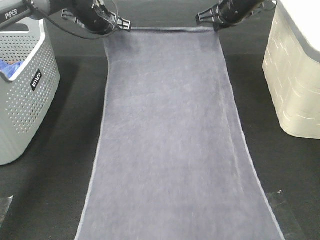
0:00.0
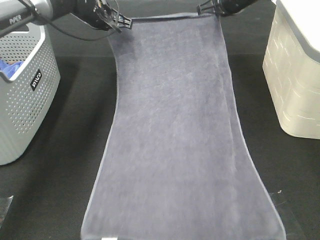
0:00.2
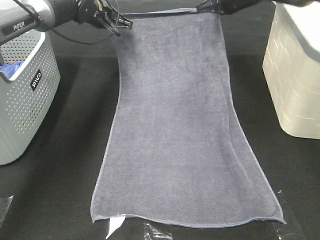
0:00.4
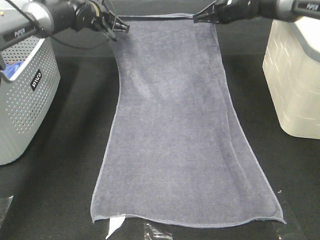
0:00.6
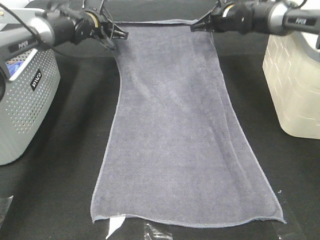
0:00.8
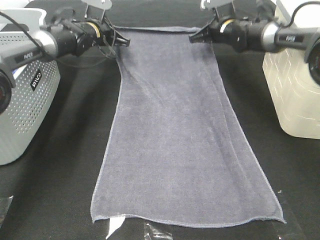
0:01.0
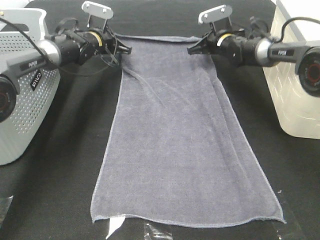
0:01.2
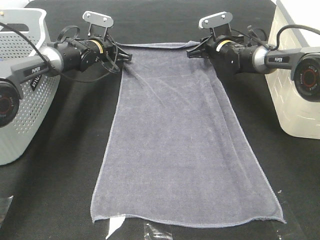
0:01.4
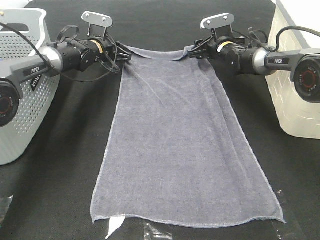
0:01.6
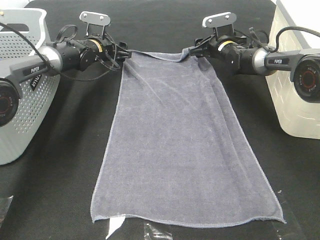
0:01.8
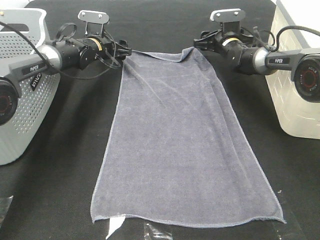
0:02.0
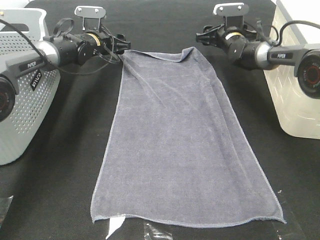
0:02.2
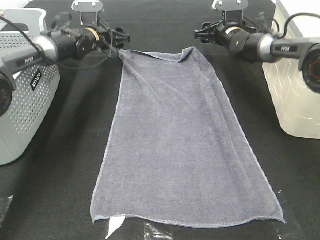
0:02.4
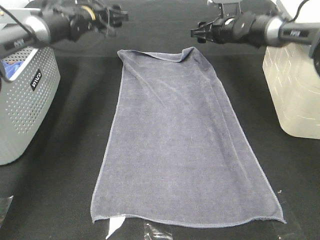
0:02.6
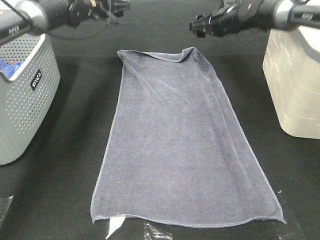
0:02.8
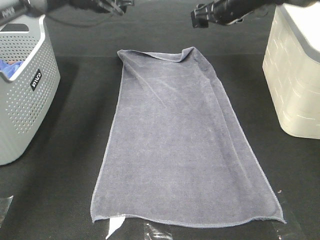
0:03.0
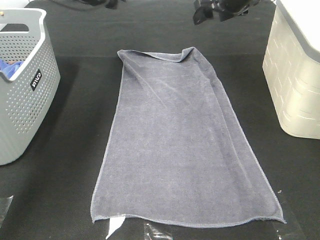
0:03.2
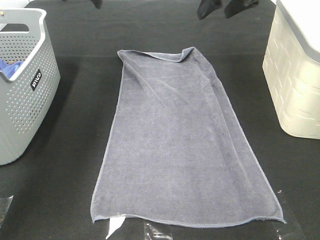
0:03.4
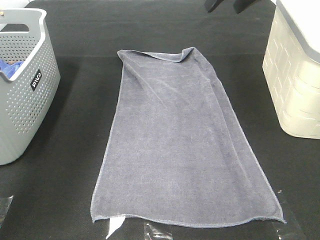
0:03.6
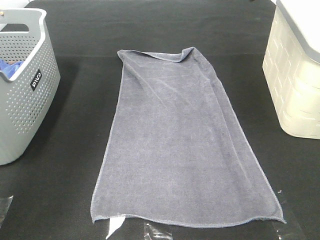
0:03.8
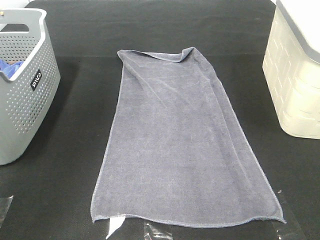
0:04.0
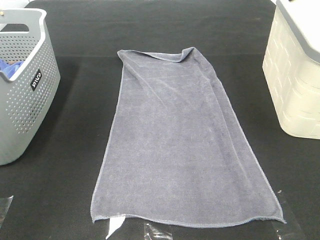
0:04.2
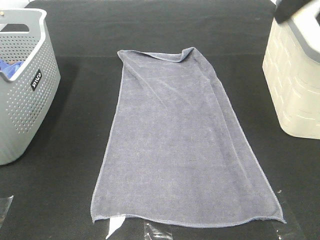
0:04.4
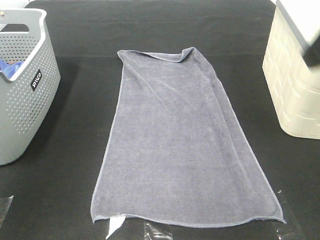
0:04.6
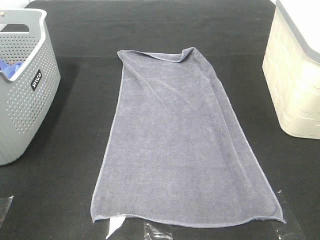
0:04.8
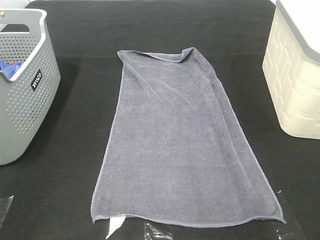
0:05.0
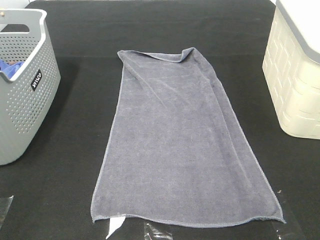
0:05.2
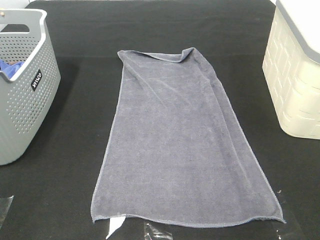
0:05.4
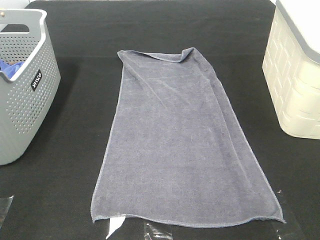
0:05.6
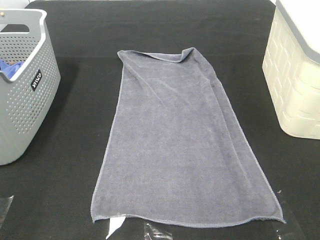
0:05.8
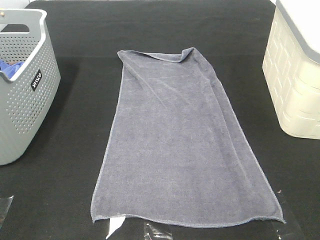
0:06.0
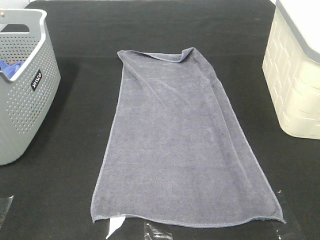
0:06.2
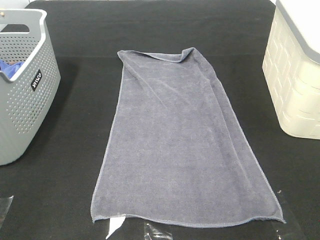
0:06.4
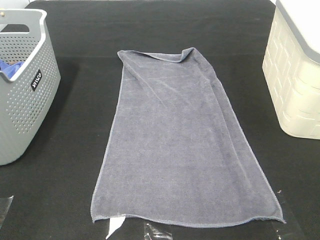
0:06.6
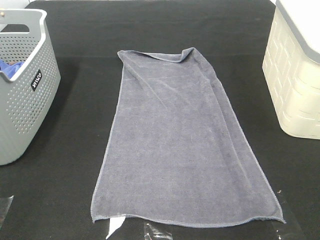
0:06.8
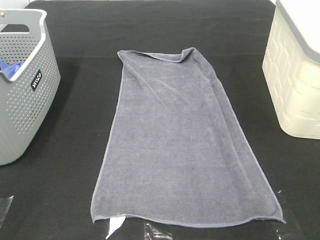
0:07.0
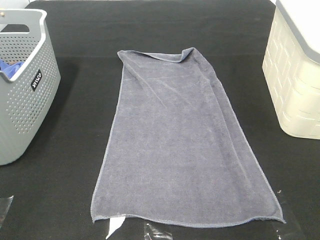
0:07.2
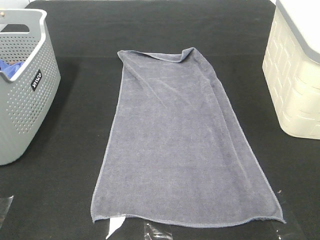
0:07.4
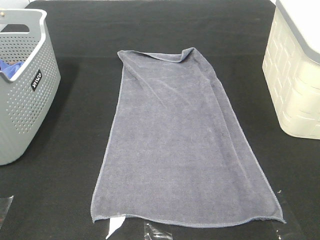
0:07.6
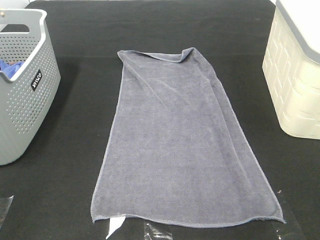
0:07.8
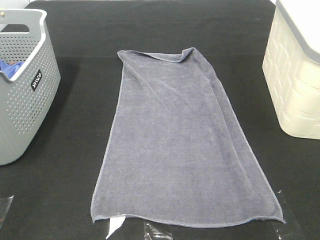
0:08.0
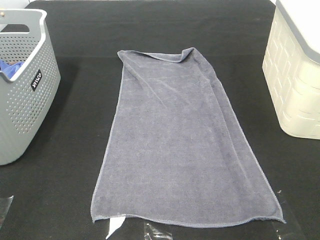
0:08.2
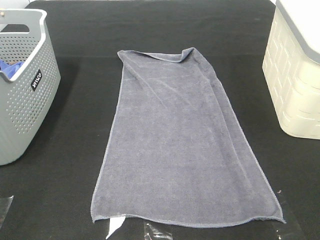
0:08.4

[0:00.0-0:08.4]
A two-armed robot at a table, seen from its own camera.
Task of the whole recording: Remove the towel and place it.
0:00.0 to 0:01.4: Both grippers travel together downward, some 15 cm. The right gripper opens up.
0:01.4 to 0:02.8: The two grippers go roughly 10 cm upward. The right gripper opens its fingers; the left gripper opens.
0:02.8 to 0:04.2: Both grippers move backward and upward, about 35 cm.
0:04.2 to 0:05.6: The right gripper goes approximately 30 cm backward; the left gripper is displaced backward and downward by about 35 cm.
0:07.0 to 0:08.4: Neither gripper changes place.

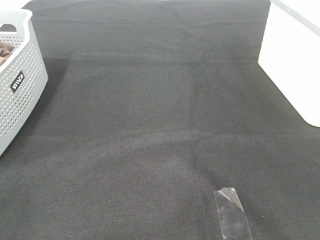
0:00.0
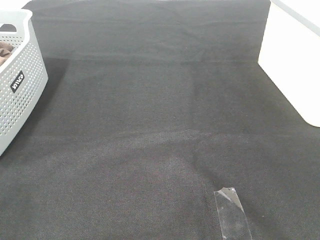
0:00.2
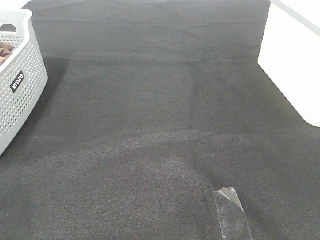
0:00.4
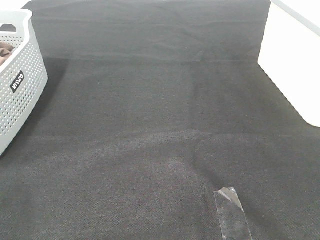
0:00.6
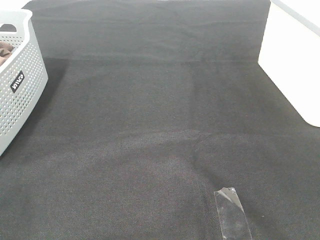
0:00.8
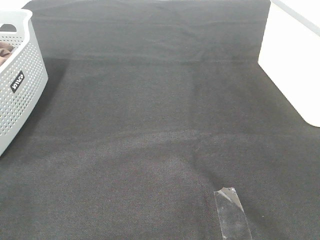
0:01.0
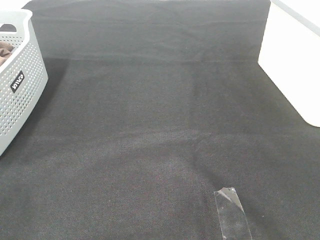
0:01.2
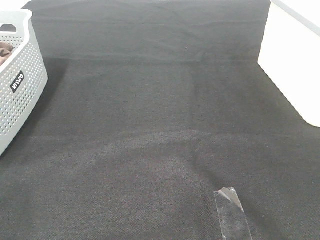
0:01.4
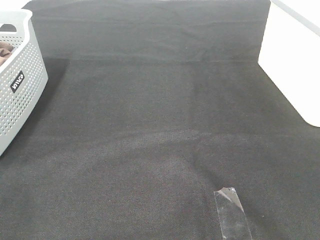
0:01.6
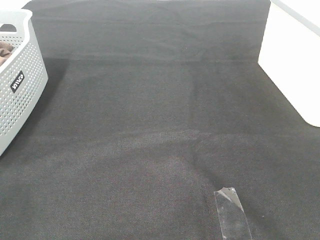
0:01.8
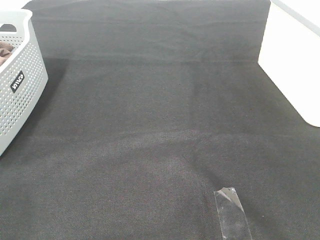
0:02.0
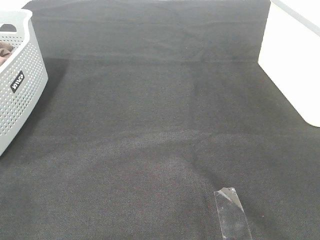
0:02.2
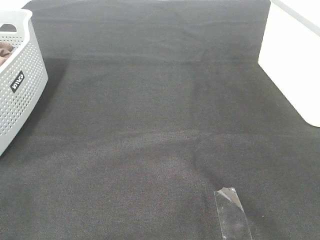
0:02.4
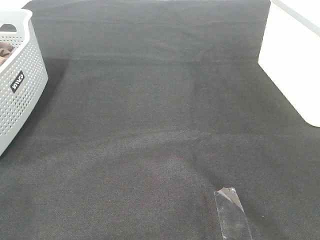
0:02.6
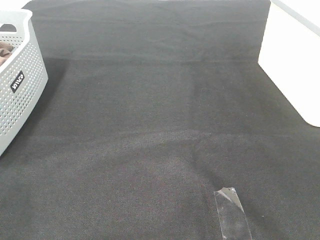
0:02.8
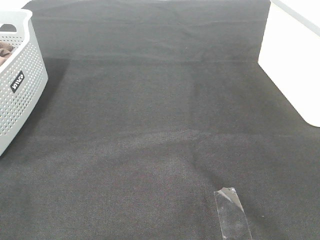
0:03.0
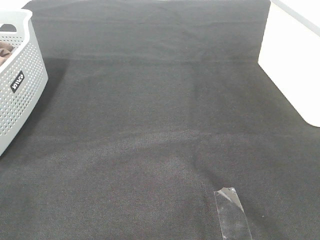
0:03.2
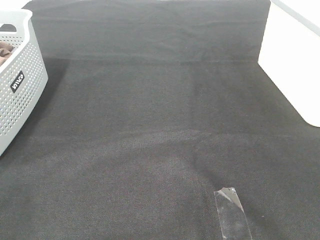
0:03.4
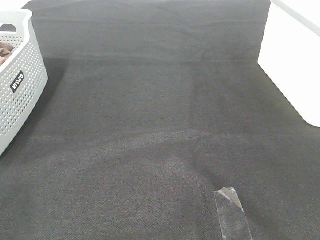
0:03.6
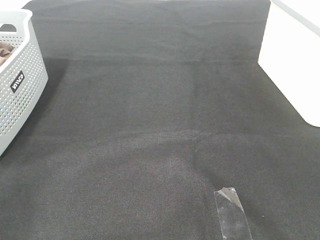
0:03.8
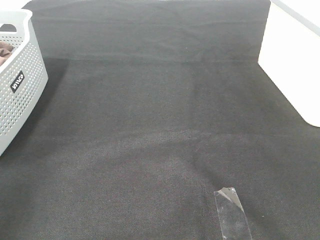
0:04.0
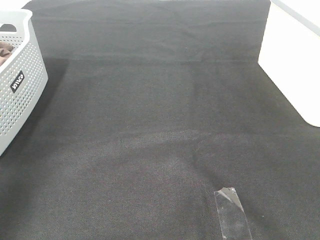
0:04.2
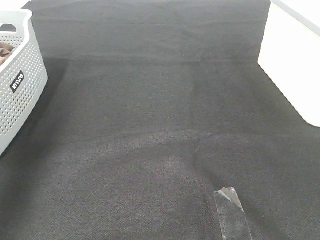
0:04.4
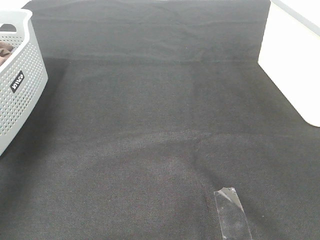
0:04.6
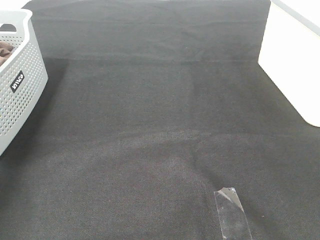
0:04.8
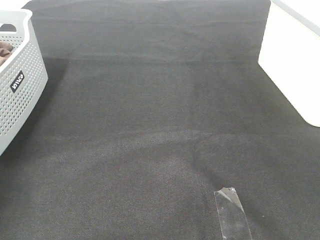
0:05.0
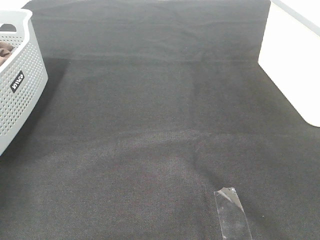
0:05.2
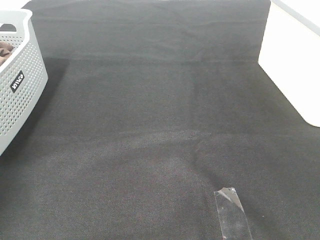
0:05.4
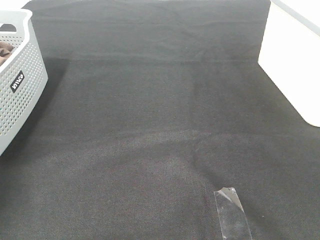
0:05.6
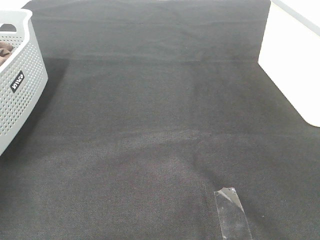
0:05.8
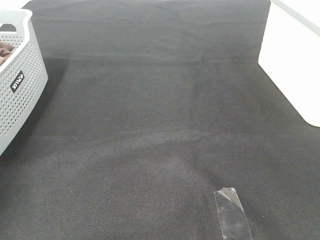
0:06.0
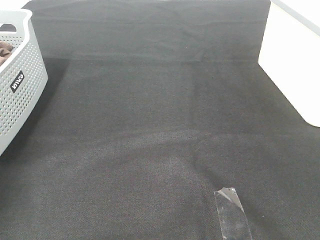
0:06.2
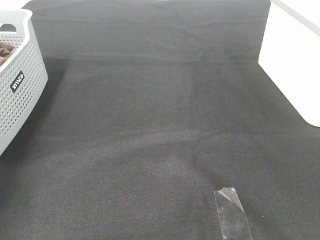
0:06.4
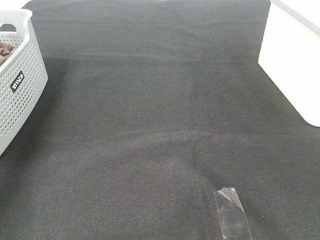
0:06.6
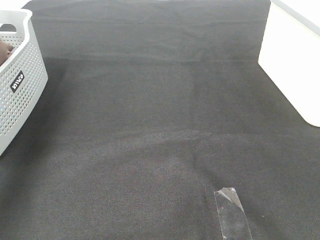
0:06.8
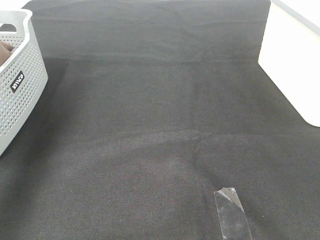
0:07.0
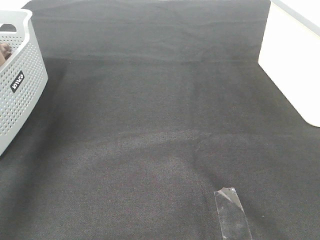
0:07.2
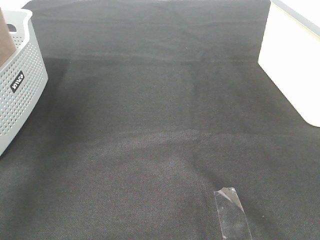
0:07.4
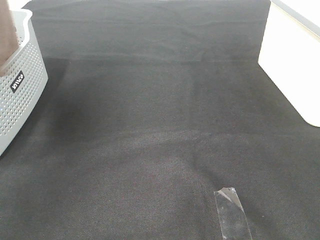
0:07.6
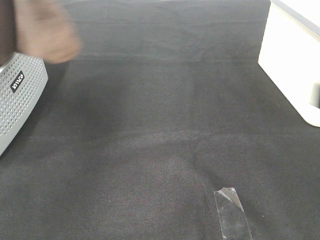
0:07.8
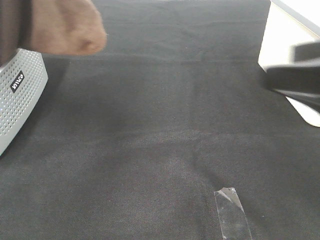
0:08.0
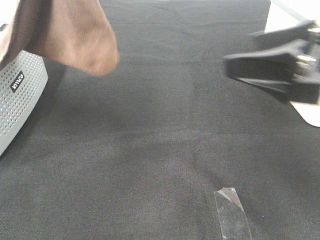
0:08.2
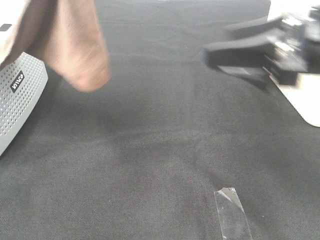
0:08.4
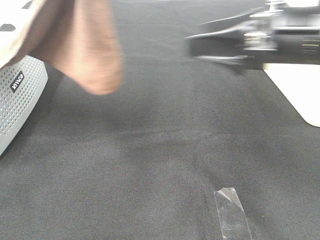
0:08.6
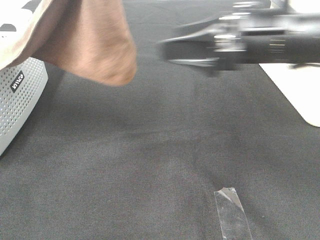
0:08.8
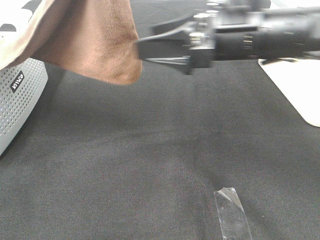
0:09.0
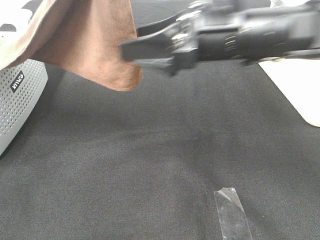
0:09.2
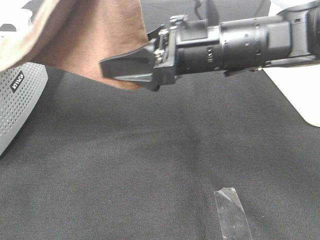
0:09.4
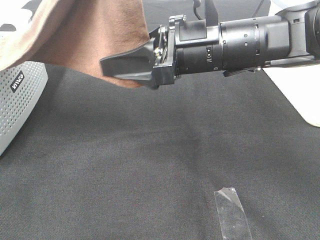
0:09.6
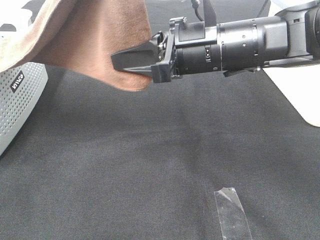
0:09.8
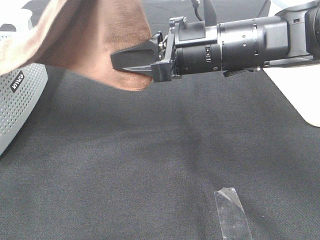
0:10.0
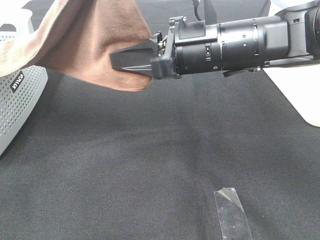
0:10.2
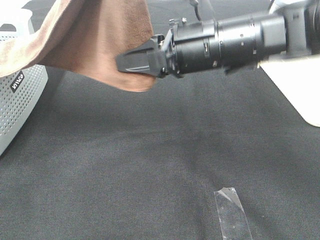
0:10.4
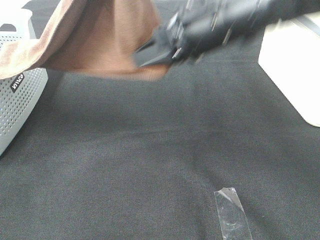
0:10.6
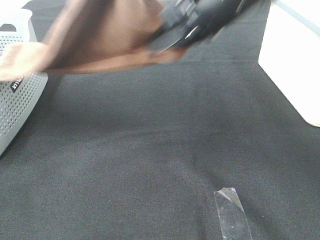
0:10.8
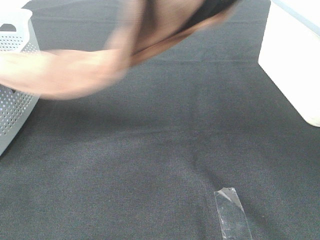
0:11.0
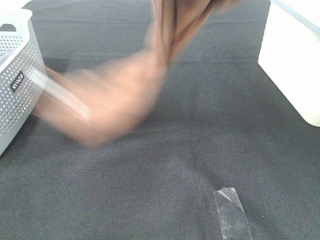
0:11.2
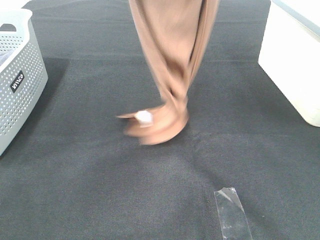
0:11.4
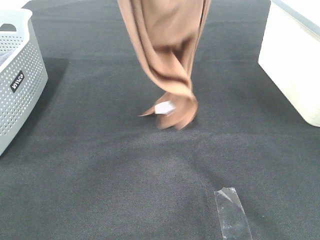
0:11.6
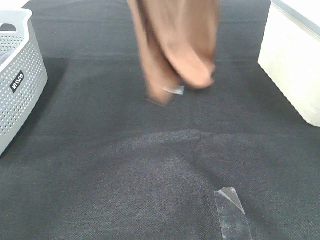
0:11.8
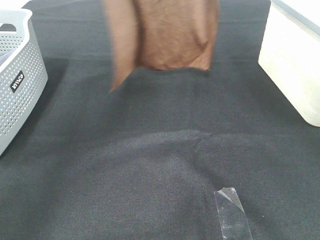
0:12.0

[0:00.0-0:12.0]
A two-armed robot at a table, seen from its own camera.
Task of the whole recording: Remove the towel and place it.
Step, 0:07.4 to 0:10.8: Right hand: grab a corner of the brown towel and straighten it.
0:00.0 to 0:03.0: Neither gripper changes place.
0:03.0 to 0:04.4: The left gripper goes about 30 cm forward and upward.
0:04.4 to 0:06.0: The left gripper goes about 25 cm downward and forward, and closes.
0:06.0 to 0:07.6: The left gripper is displaced upward, to the right and backward by roughly 40 cm.
0:07.6 to 0:09.0: The right gripper goes approximately 25 cm forward and to the left; the left gripper shifts roughly 10 cm to the right.
0:09.0 to 0:10.4: The right gripper closes up.
0:10.4 to 0:12.0: The right gripper heads upward, covering roughly 25 cm, while the left gripper goes some 15 cm forward and to the left.

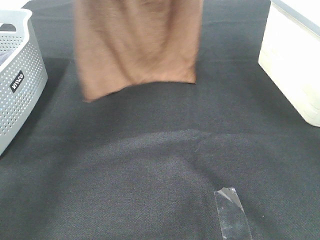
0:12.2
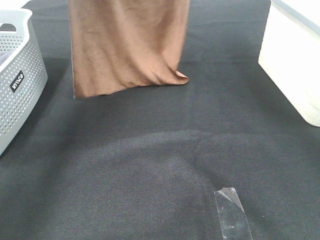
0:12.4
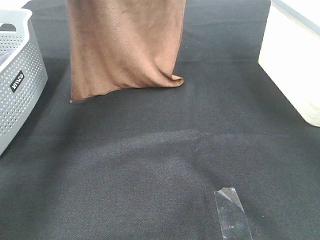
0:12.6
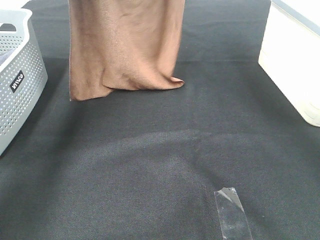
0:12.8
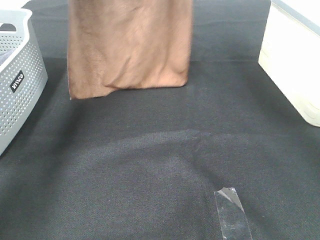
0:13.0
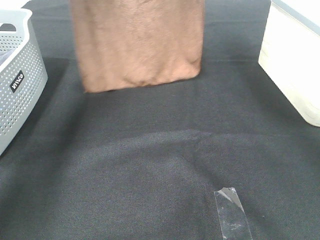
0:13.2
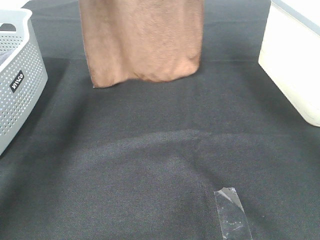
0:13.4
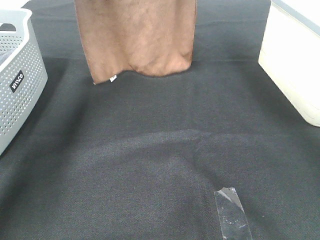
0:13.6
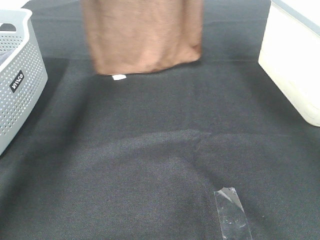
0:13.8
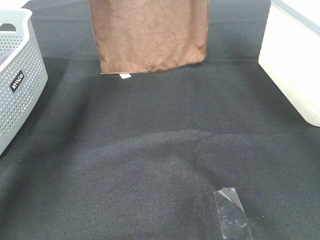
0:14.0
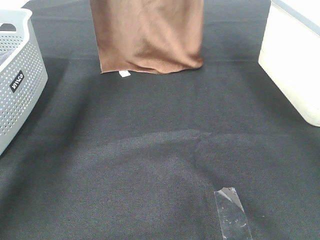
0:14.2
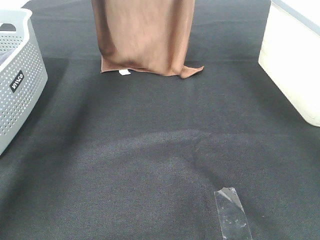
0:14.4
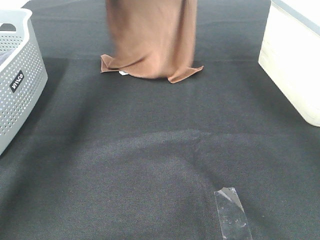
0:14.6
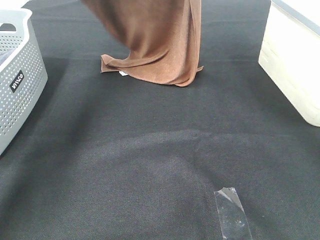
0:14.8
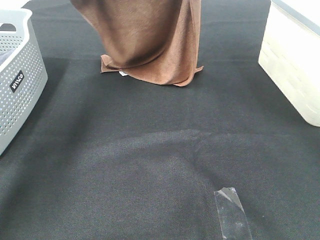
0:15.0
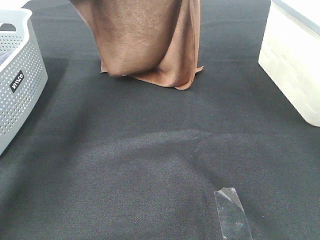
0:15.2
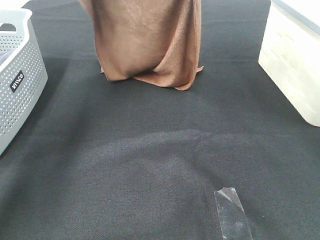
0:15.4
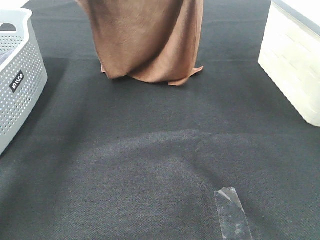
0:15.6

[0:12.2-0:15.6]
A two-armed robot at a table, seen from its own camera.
Task of the whole recording: Remove the towel and place it.
0:12.2 to 0:13.8: The left gripper is displaced forward by some 15 cm. Meanwhile the right gripper heads forward, covering some 5 cm.
0:13.8 to 0:15.6: Both grippers move backward, approximately 10 cm.
